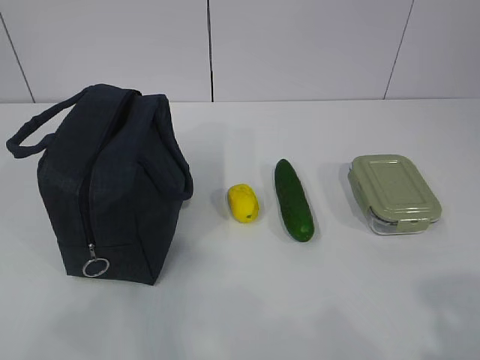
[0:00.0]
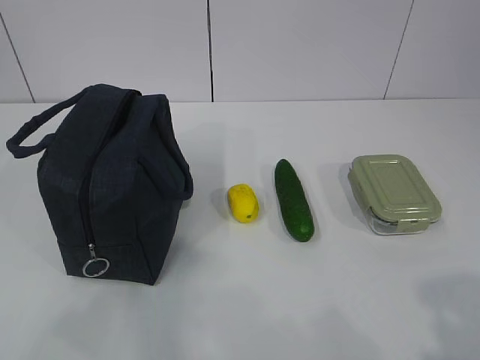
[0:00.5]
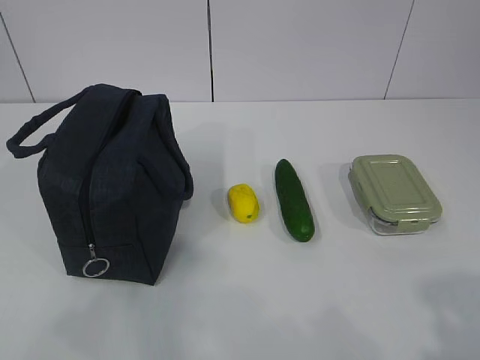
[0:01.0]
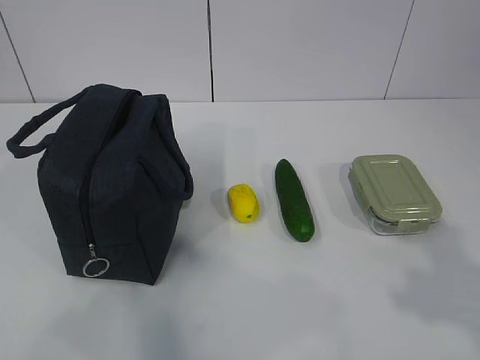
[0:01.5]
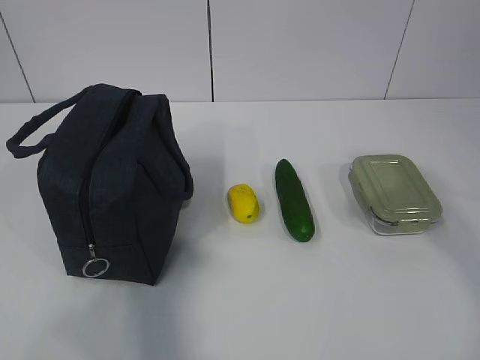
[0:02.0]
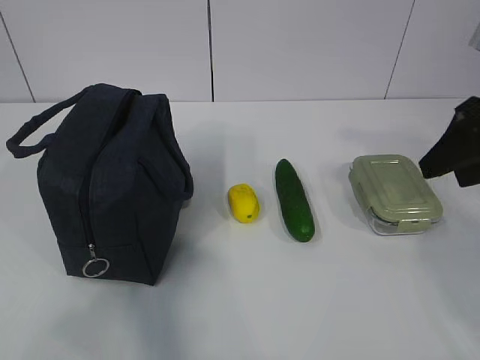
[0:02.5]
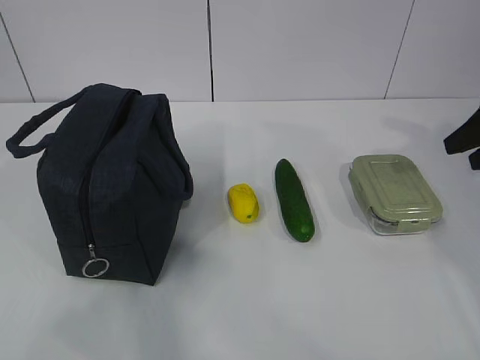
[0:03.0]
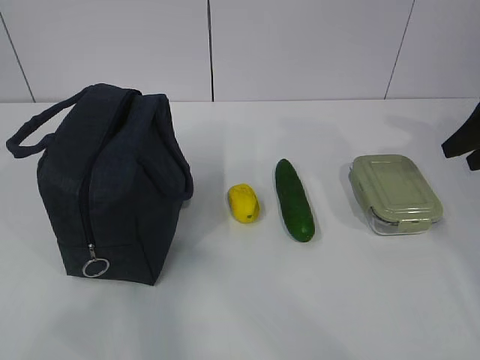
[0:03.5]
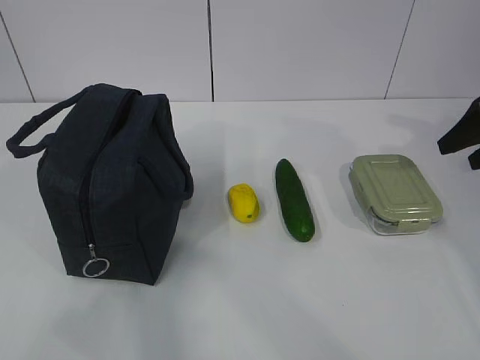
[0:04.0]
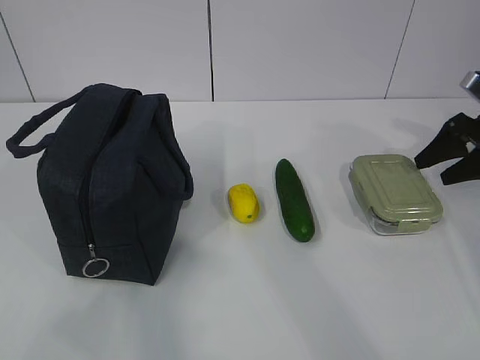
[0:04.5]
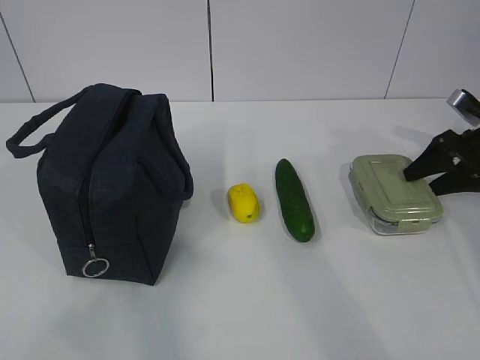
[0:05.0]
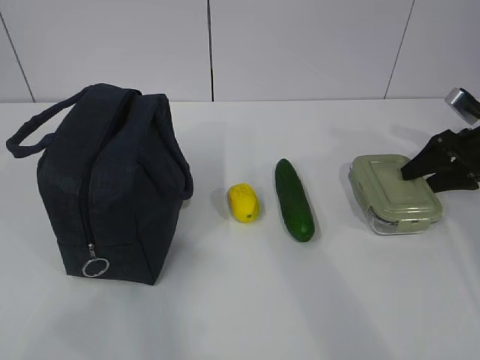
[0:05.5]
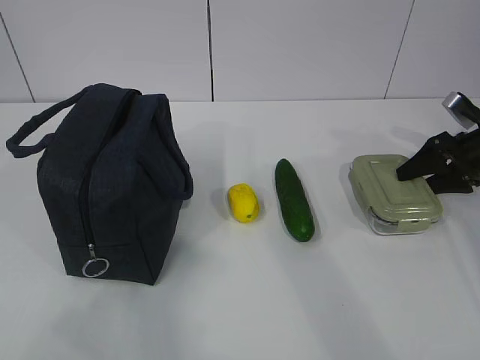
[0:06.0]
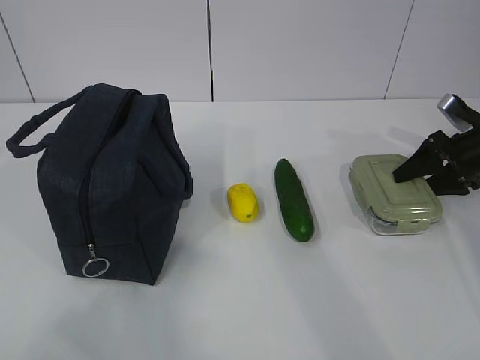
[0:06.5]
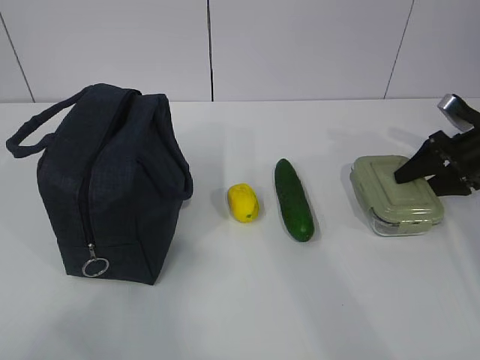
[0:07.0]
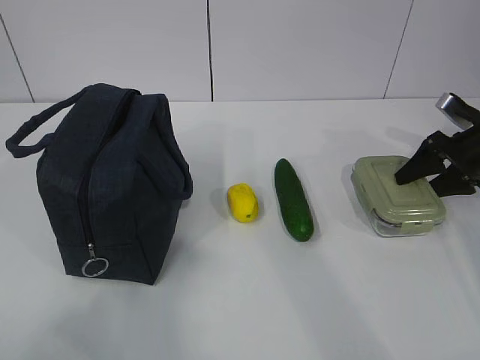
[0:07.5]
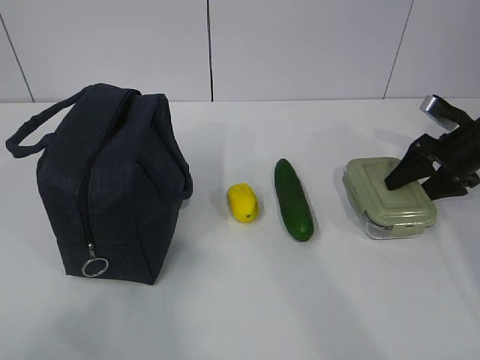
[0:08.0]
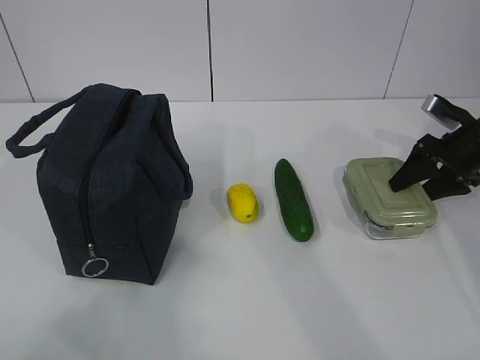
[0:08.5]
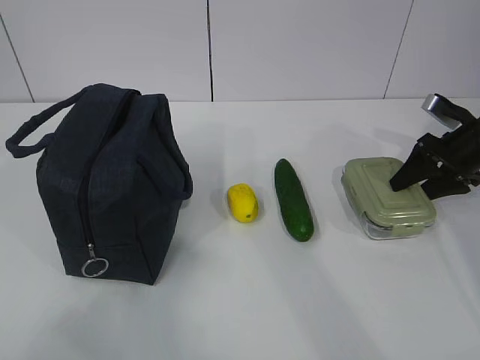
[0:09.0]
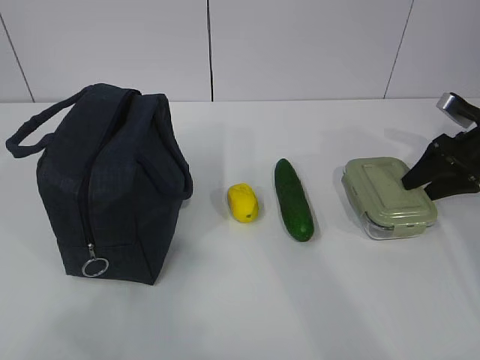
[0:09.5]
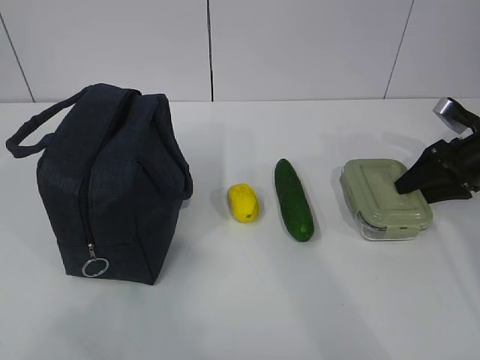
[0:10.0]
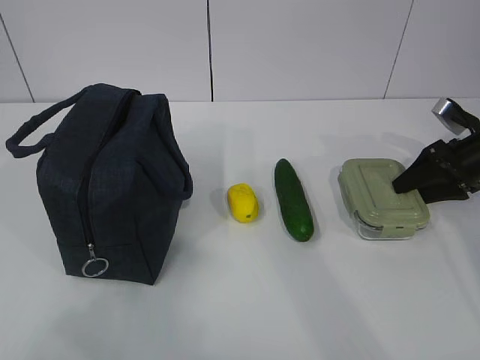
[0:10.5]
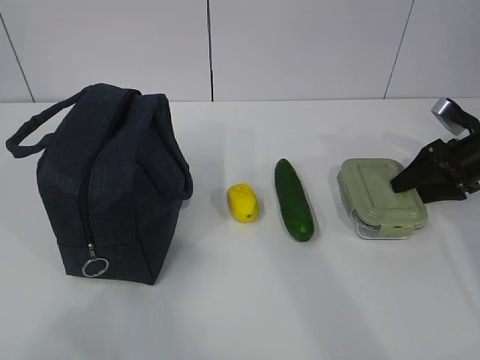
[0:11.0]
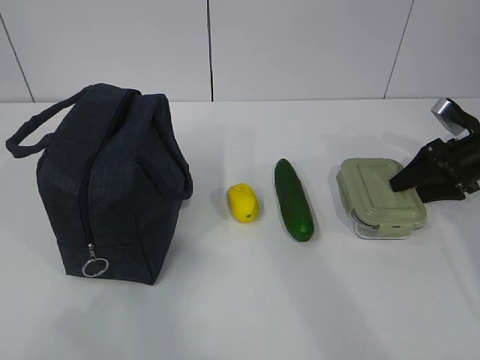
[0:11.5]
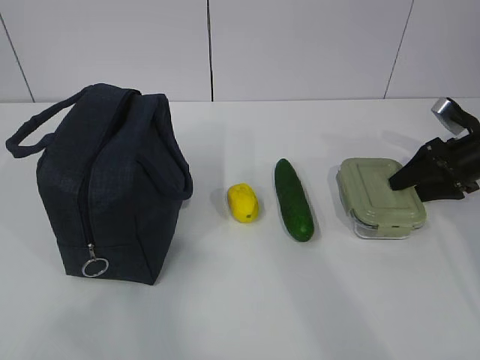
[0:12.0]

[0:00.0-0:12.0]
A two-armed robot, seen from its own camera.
0:02.0 to 0:04.0: The right gripper heads forward, to the right and downward, covering some 25 cm.
0:04.0 to 0:06.0: The right gripper heads downward and forward, covering approximately 10 cm.
0:06.0 to 0:10.0: The grippers stay close to where they were, moving slightly.
0:10.0 to 0:12.0: Both grippers stay put.

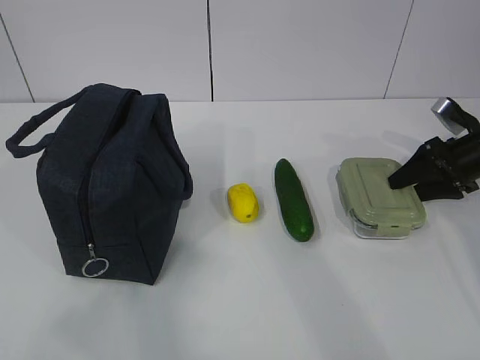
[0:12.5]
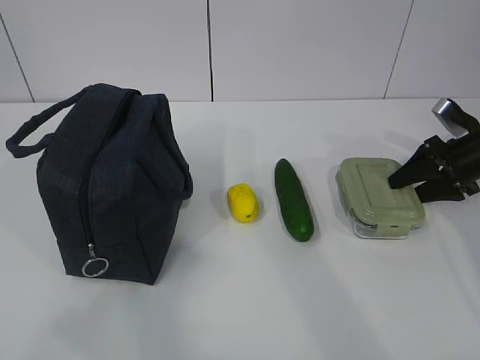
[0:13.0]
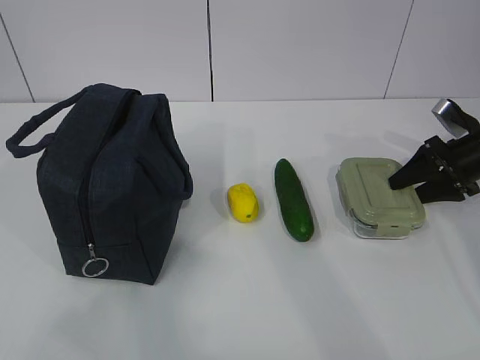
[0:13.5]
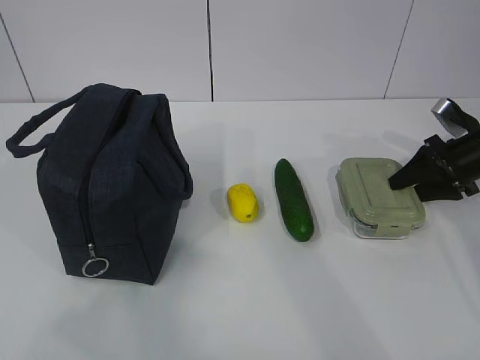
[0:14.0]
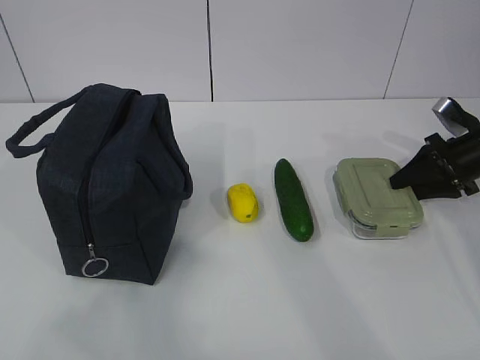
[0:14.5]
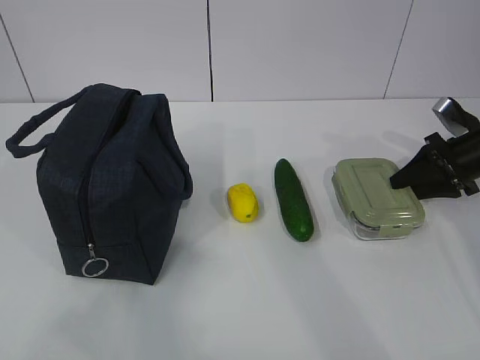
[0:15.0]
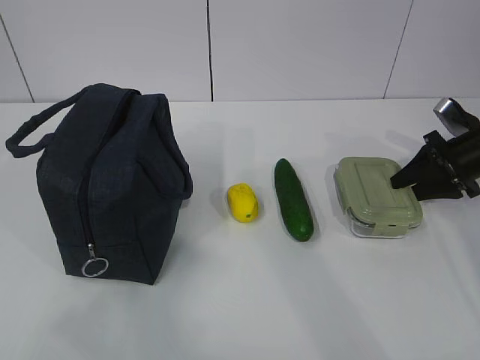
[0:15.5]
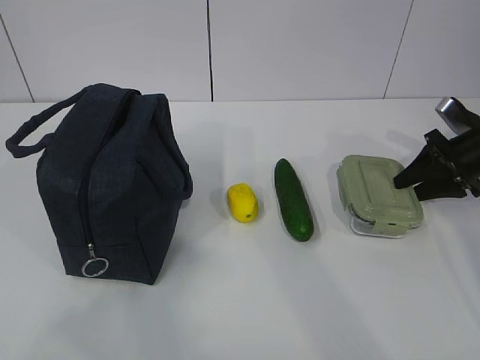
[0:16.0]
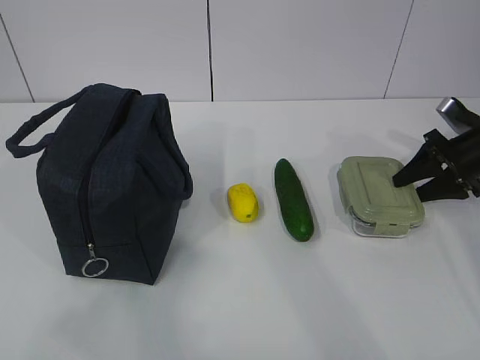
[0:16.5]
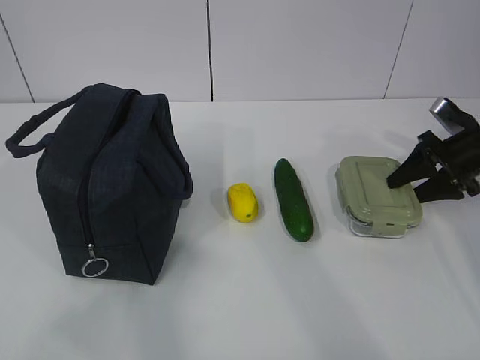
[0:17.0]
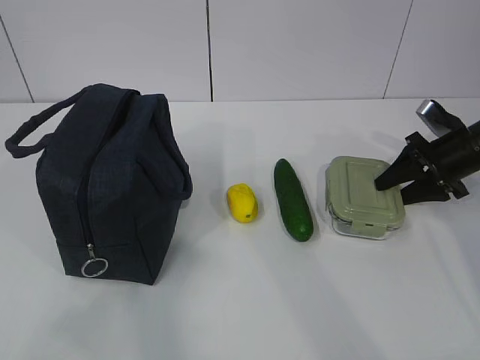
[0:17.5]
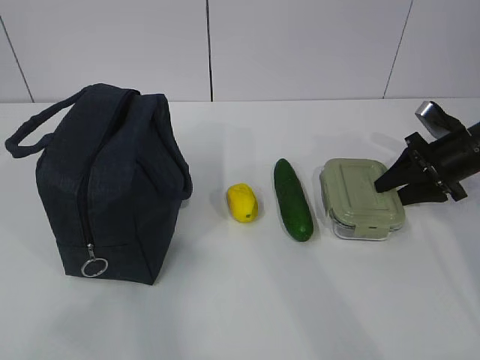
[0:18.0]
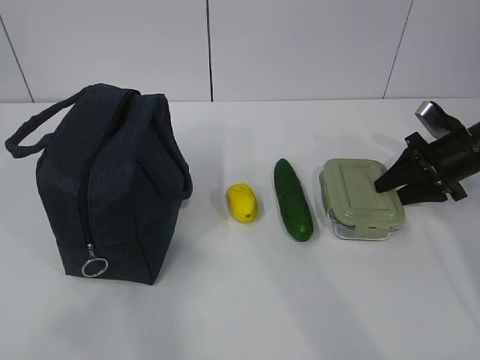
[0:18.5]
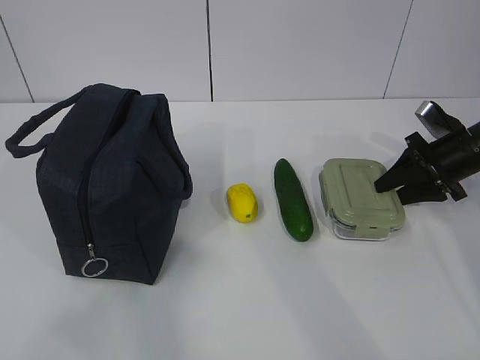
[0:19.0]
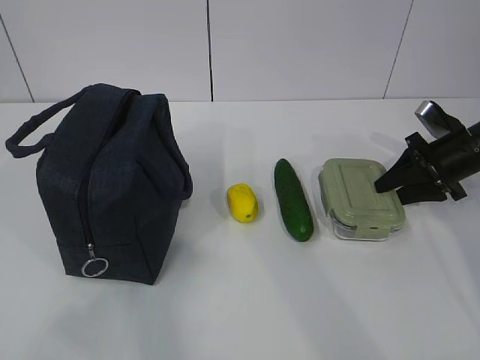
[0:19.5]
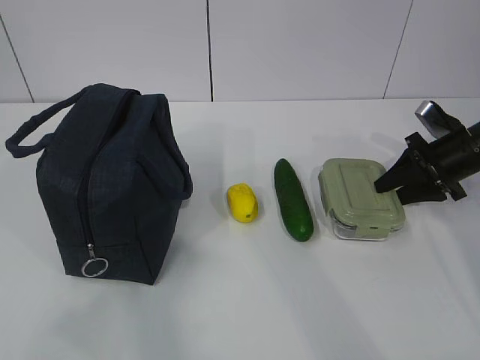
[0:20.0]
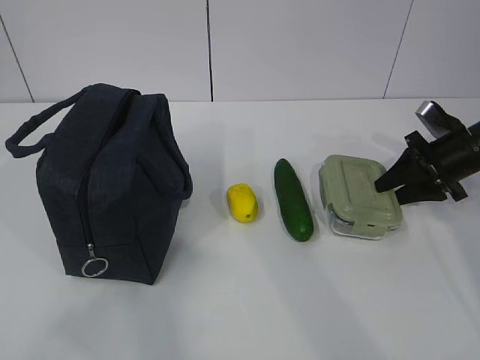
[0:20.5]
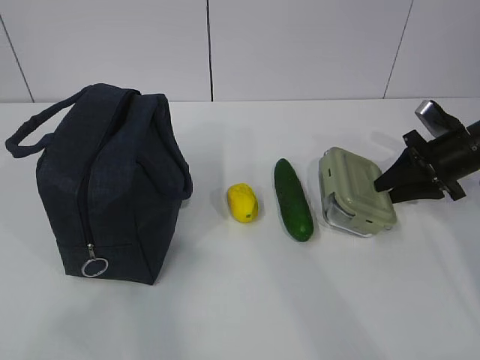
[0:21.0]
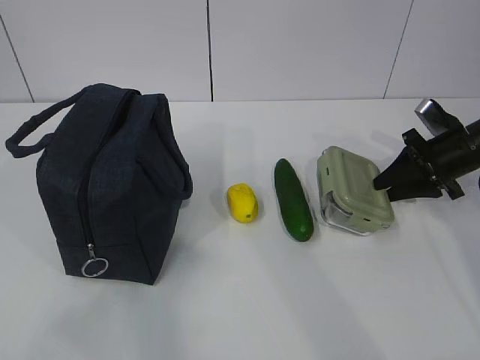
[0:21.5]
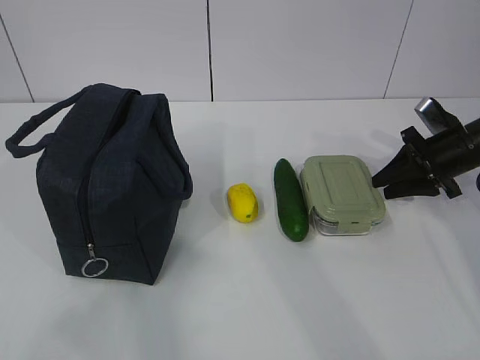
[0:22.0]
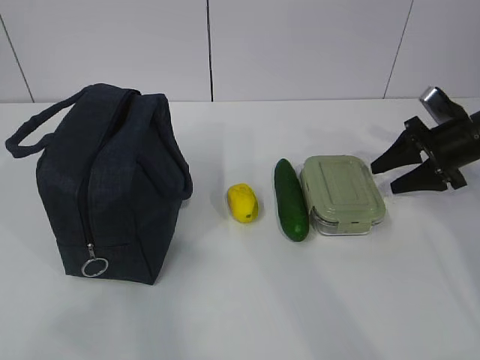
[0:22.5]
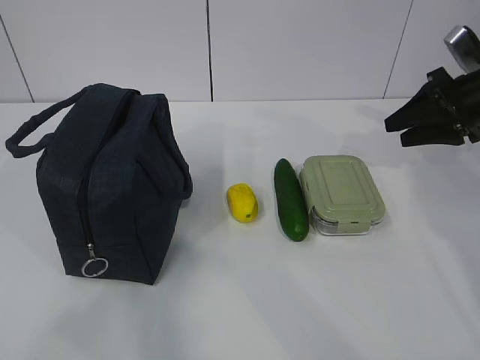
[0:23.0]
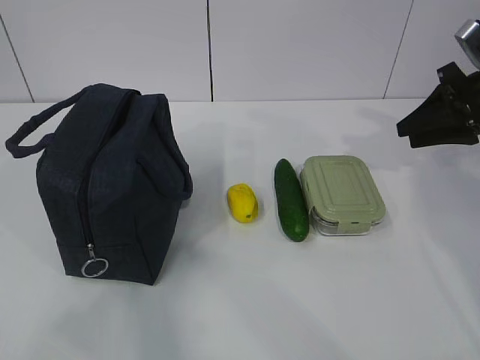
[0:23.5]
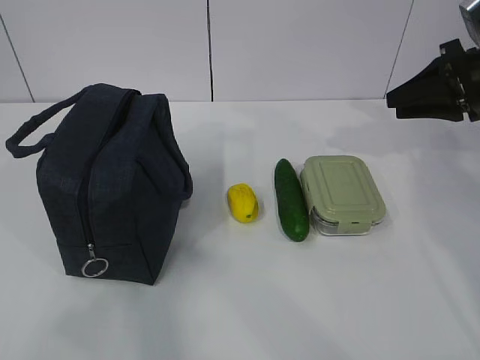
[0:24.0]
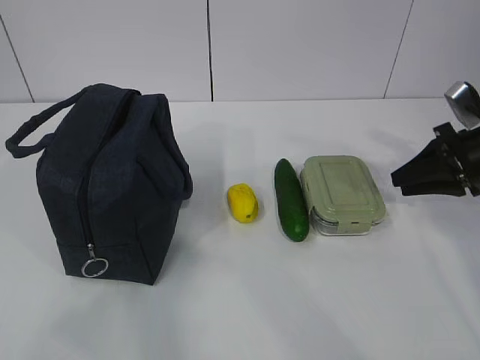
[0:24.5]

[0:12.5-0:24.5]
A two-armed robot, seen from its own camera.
0:12.5 to 0:14.5: Both grippers stay put.
0:14.5 to 0:18.5: There are only small adjustments of the grippers.
0:18.5 to 0:20.5: Both grippers stay put.
0:20.5 to 0:22.5: The grippers make only small movements.
0:22.5 to 0:24.5: The right gripper travels backward by about 5 cm, reaches roughly 10 cm upward, then returns, and closes.

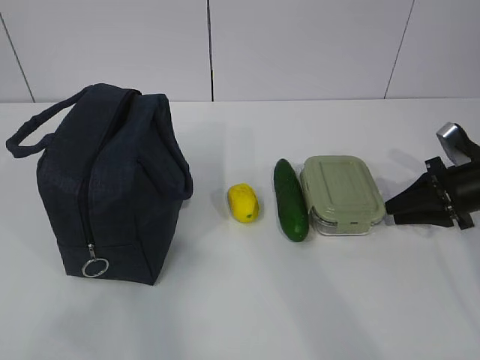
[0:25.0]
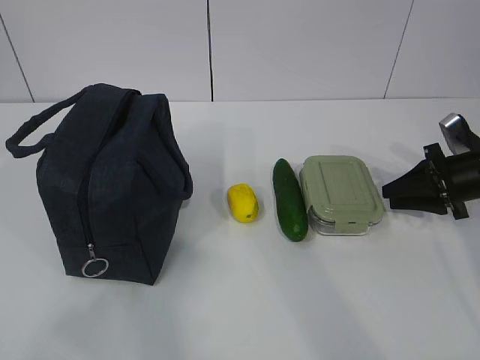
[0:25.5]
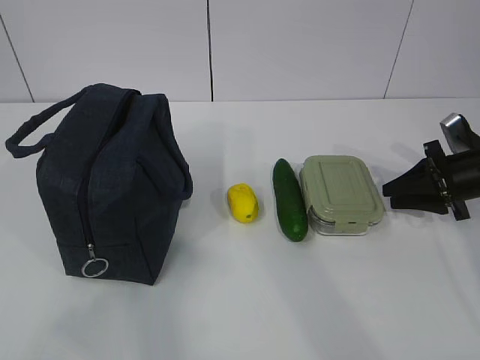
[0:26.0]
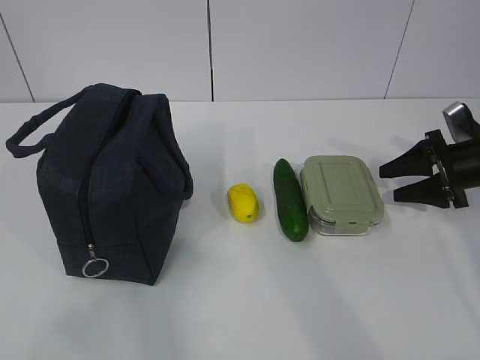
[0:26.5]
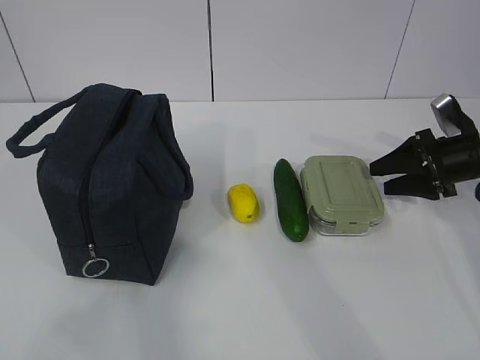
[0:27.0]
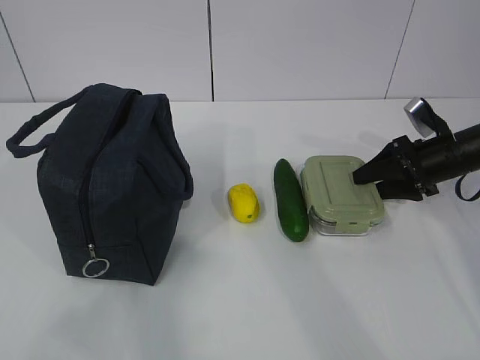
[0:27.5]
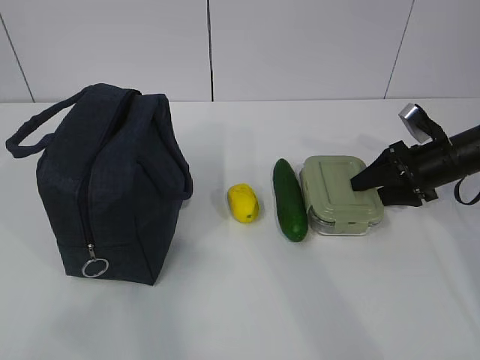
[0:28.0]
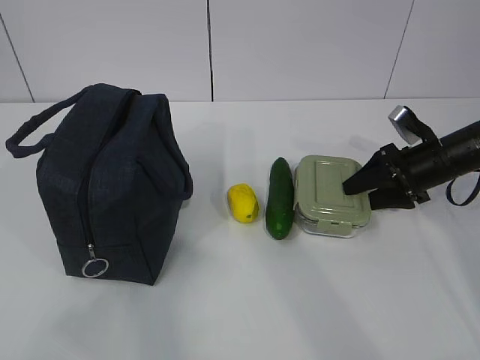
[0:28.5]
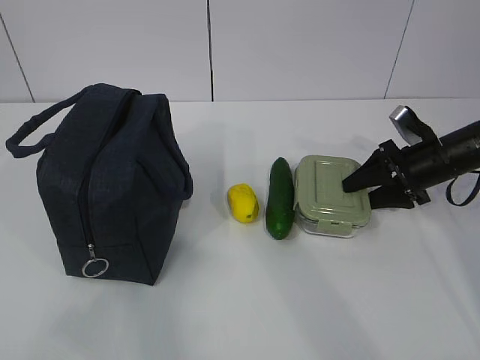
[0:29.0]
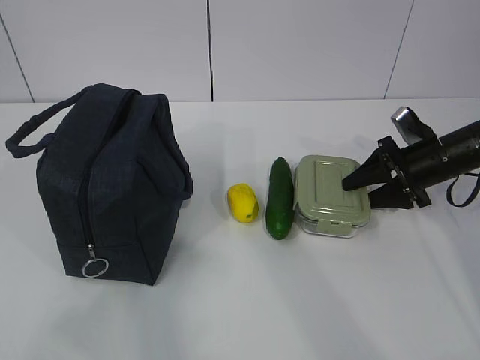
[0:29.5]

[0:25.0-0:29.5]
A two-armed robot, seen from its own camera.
Step, 0:25.0 to 0:28.0: Grab the pear with your right hand.
0:25.0 to 0:27.0: The right gripper opens its fingers.
0:27.0 to 0:29.5: There are only small adjustments of the grippers.
